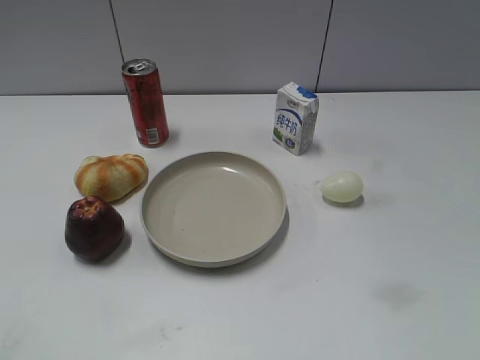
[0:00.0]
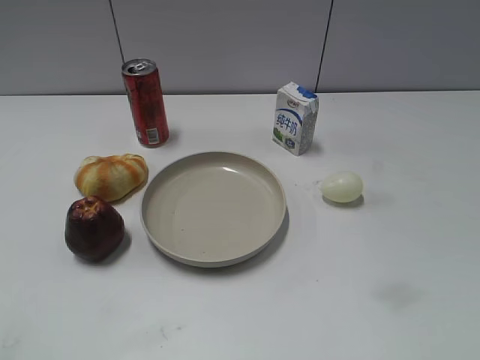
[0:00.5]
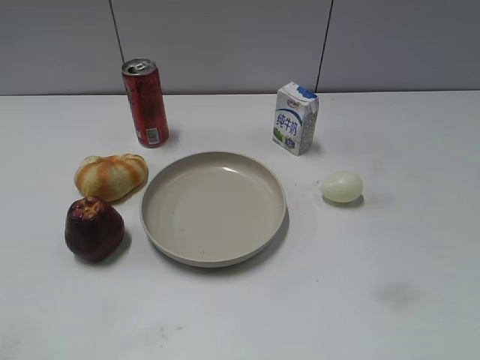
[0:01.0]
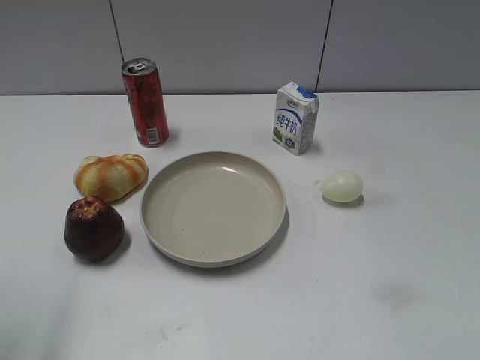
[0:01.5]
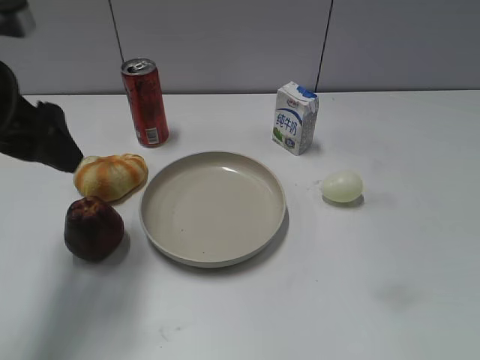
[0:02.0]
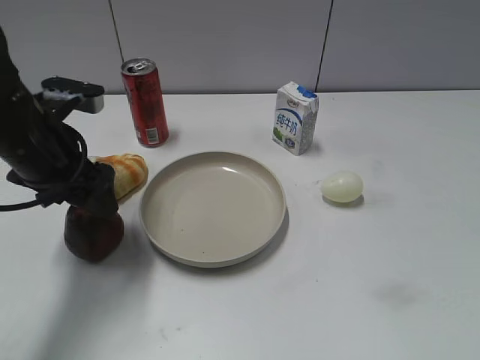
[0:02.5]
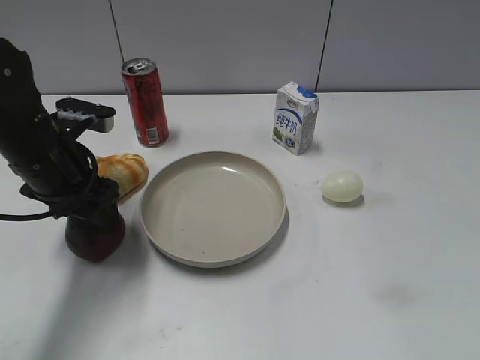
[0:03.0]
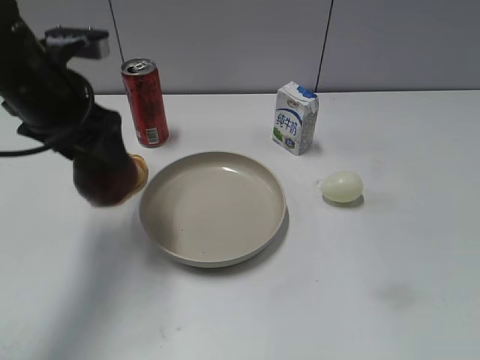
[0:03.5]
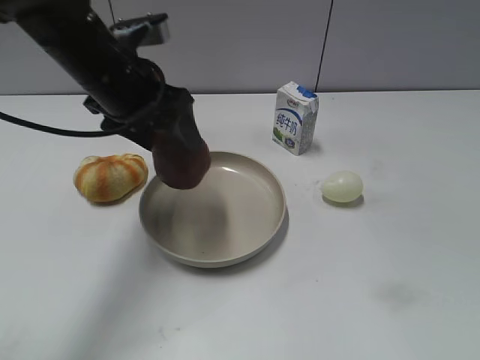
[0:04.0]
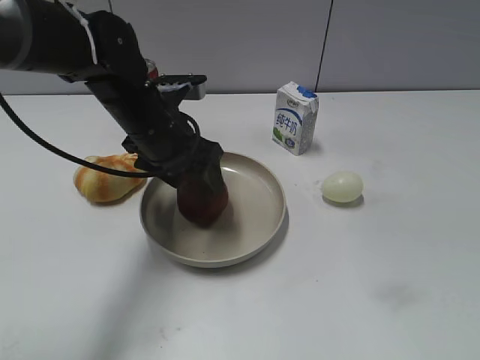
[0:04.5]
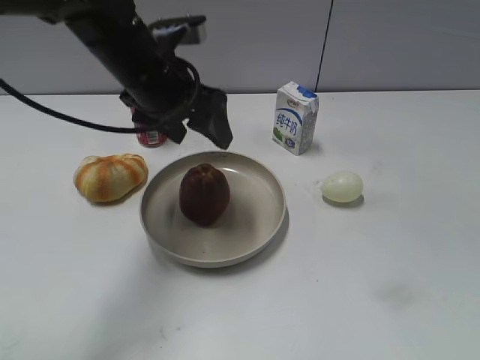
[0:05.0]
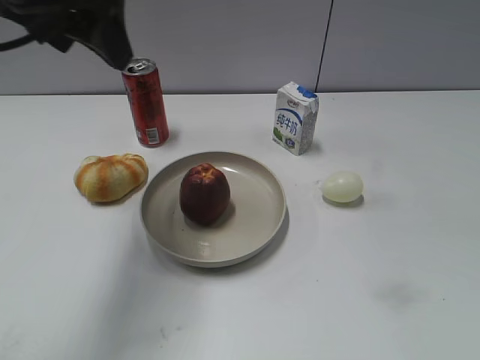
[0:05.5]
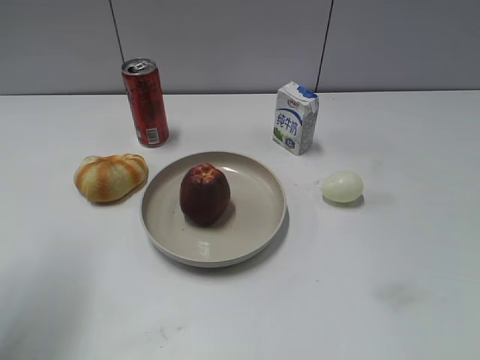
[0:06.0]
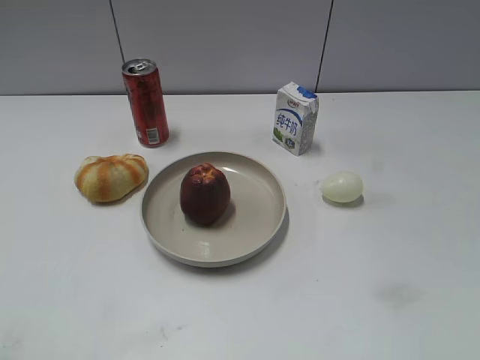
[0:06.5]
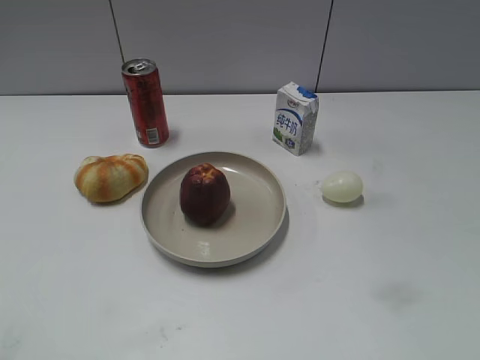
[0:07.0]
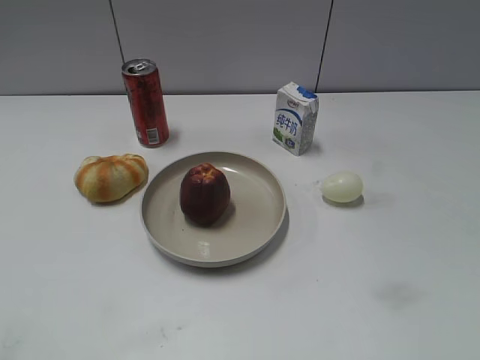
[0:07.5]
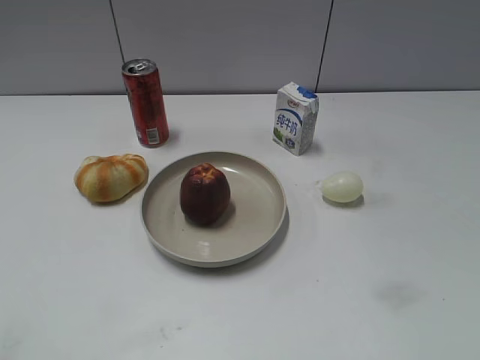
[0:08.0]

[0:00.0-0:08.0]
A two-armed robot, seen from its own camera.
Step, 0:01.0 to 0:02.5: Grasp the apple with left gripper.
Step, 0:03.5 to 0:04.5: Place the apple on the plate with left gripper.
0:02.0 to 0:04.0: The left gripper heads to the right and forward, covering approximately 15 cm, and closes.
0:04.0 to 0:06.0: The left gripper shifts approximately 20 cm to the left, backward and upward.
0:06.0 to 0:08.0: The left gripper shifts about 20 cm backward, and closes.
